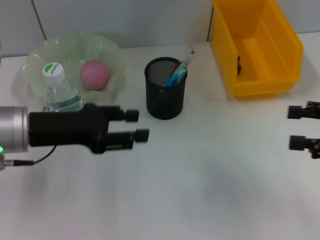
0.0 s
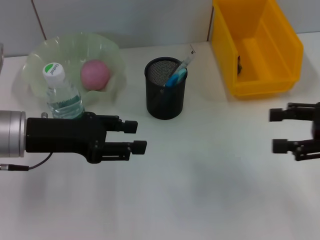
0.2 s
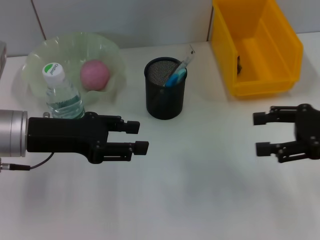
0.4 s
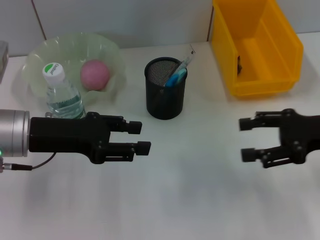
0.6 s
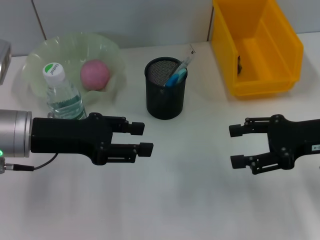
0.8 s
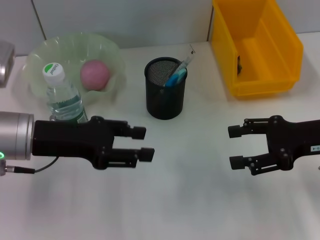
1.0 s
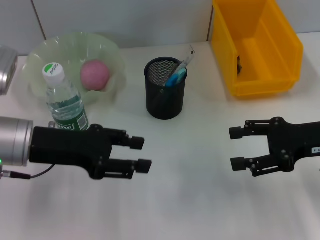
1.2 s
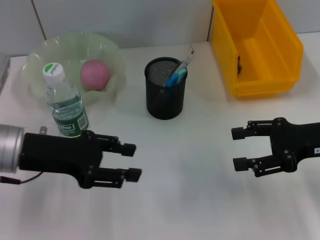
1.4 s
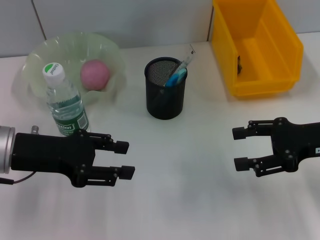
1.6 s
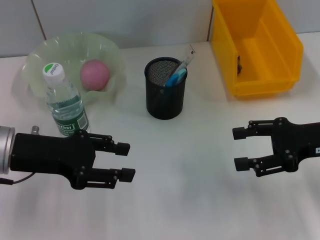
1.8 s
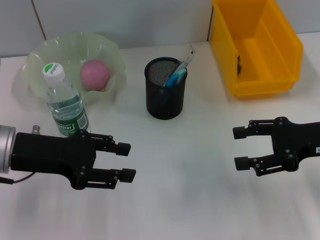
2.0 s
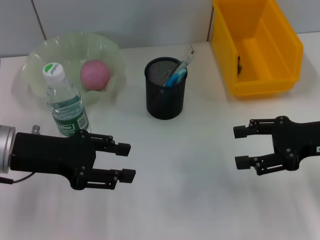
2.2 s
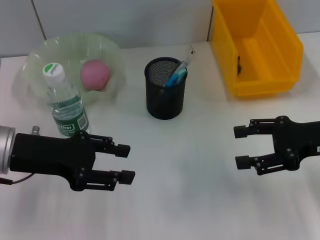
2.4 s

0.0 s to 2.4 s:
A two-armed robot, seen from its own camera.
0.0 to 1.2 s: The right gripper shifts some 5 cm to the left.
1.2 to 2.4 s: The grippers stay close to where they were, moving slightly.

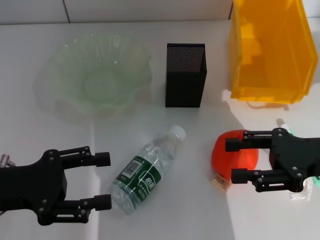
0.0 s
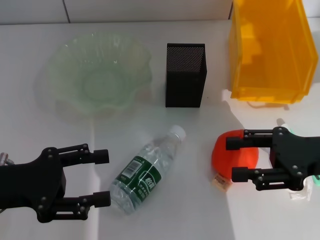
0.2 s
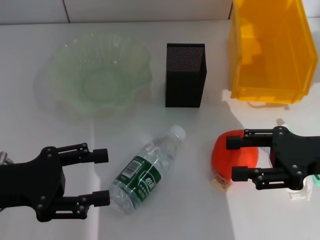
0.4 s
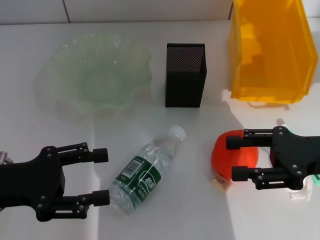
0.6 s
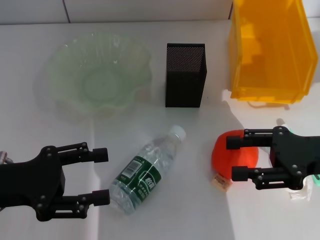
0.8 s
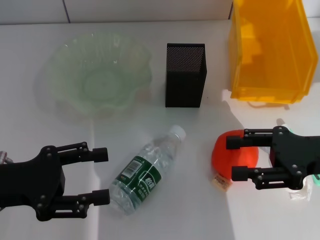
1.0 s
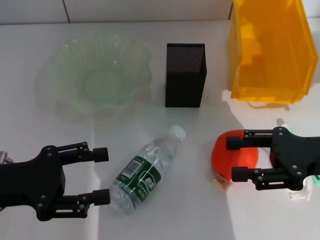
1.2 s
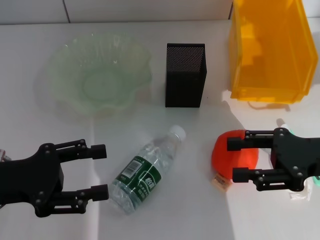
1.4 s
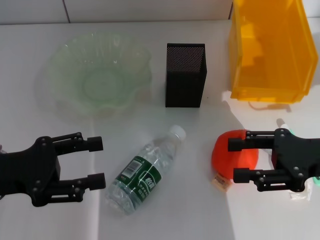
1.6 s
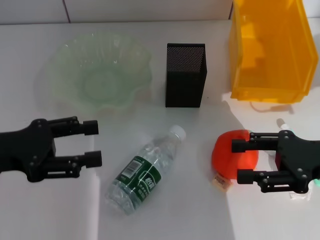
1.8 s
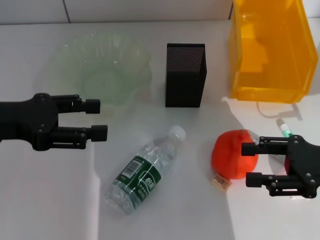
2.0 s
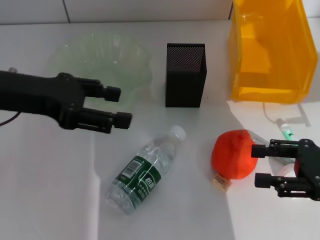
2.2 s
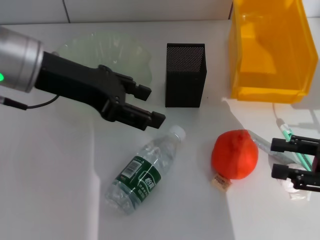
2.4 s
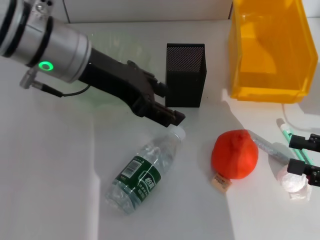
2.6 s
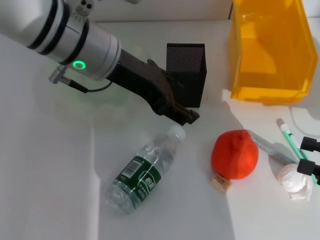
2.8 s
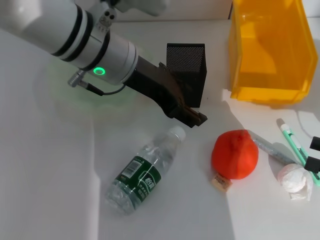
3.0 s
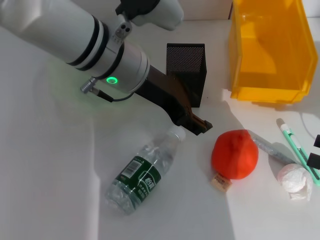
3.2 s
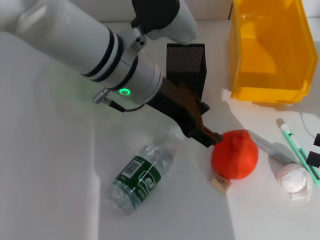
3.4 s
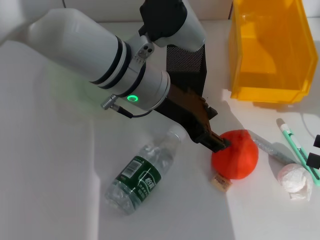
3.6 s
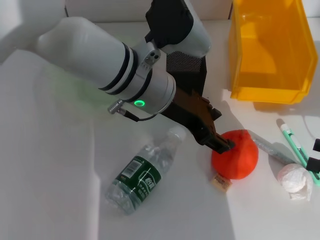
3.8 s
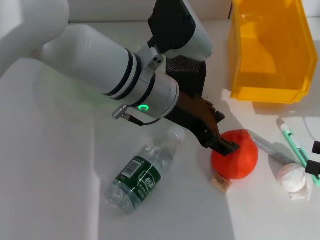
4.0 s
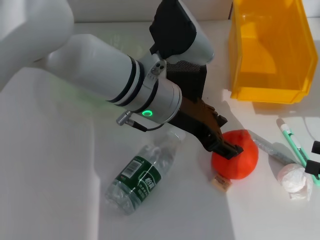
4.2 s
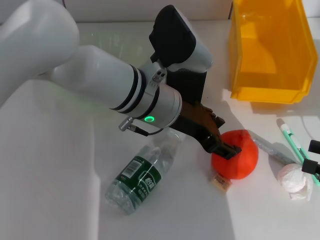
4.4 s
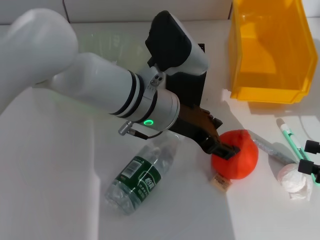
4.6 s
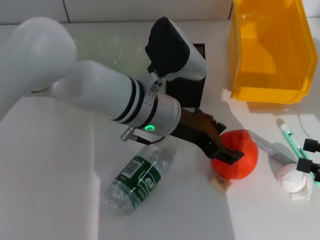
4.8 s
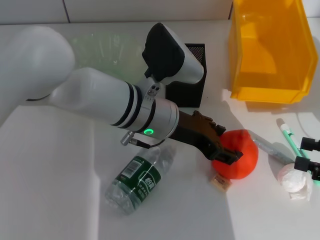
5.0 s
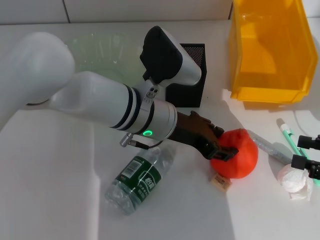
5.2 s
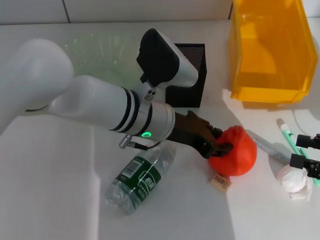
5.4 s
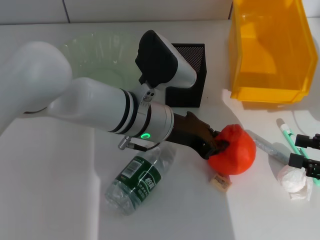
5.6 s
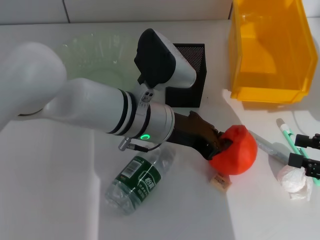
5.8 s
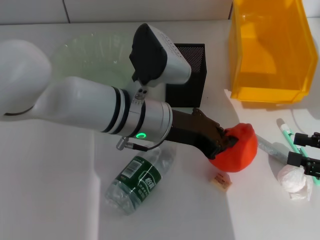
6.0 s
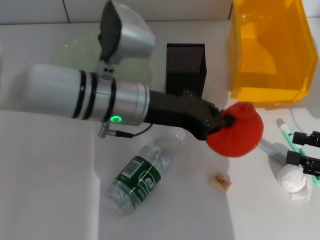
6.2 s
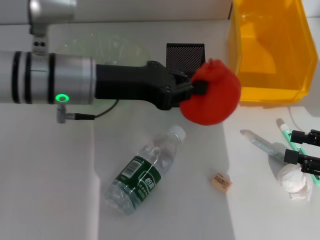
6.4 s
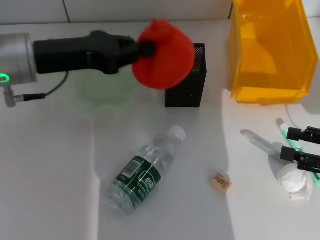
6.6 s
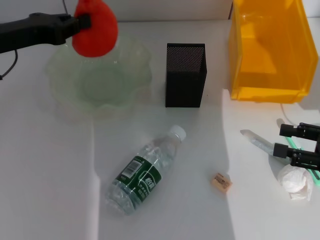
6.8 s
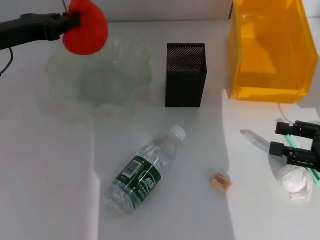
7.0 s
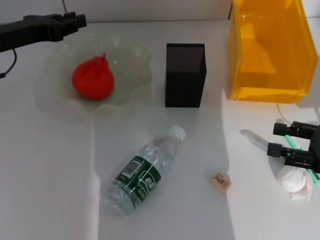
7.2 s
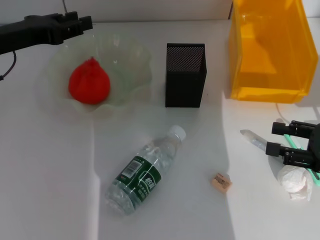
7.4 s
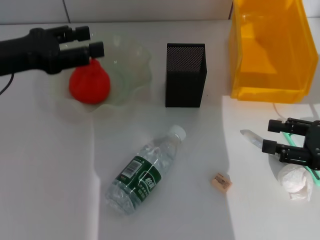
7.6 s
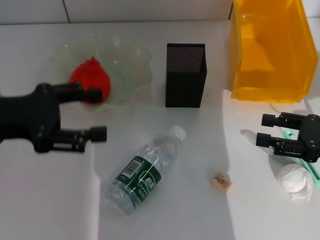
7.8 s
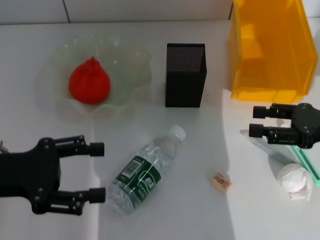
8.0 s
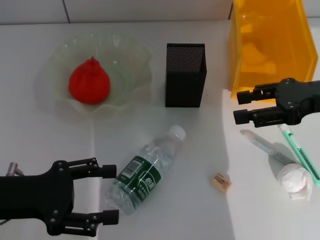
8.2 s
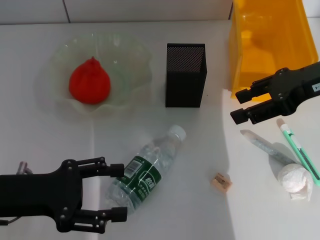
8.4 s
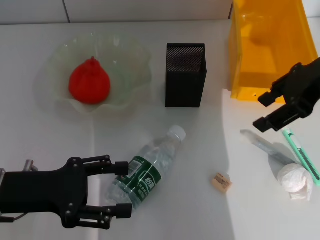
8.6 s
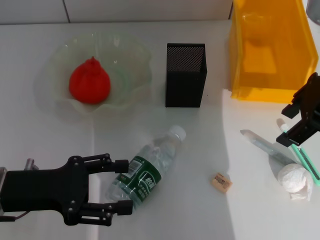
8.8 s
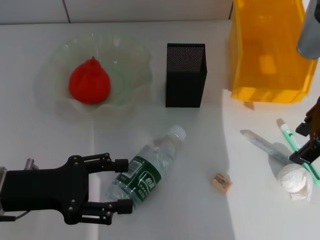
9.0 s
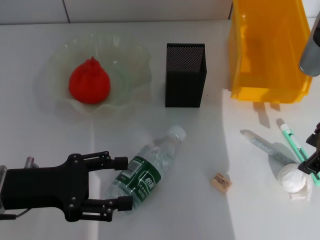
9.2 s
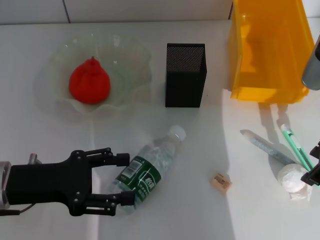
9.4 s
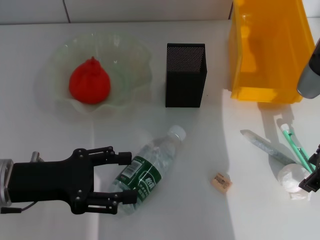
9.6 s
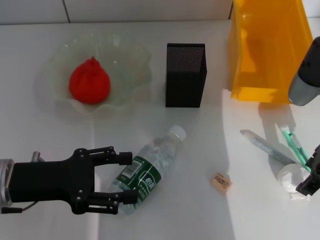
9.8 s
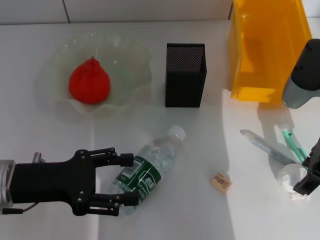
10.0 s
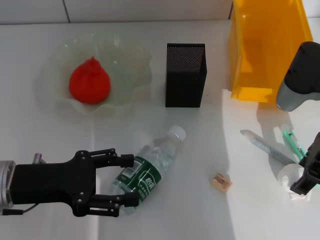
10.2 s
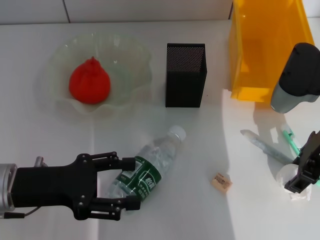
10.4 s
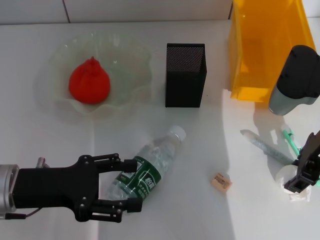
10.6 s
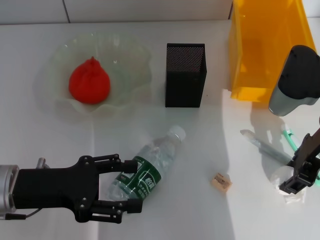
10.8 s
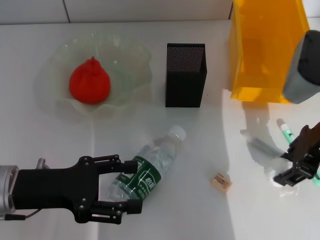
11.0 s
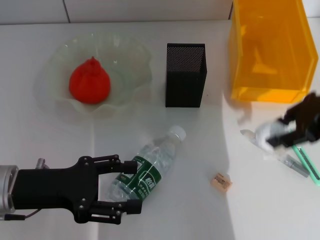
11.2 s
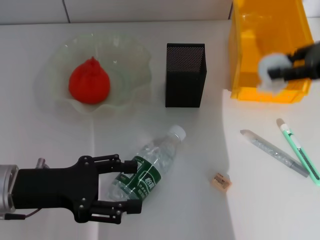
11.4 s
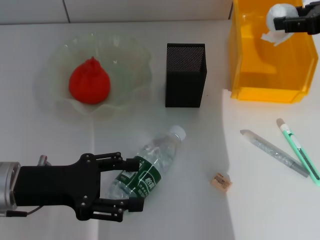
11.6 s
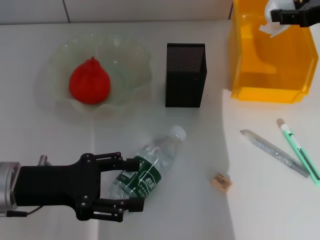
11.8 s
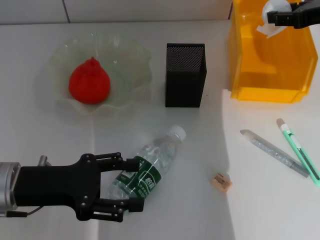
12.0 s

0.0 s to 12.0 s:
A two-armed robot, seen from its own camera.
Step, 0.0 to 5.6 s: Grab the orange with the left hand.
Step, 5.8 to 7.2 s: Place the orange into the fruit bowl with the left hand.
Step, 7.4 to 10.4 s: Grab the paper ball with the right hand.
0.0 to 1.6 s: Neither gripper changes place.
1.6 to 3.0 s: The left gripper shifts about 25 cm to the right, forward and upward; the right gripper heads to the right and backward, covering approximately 10 cm.
3.0 to 4.4 s: The left gripper is displaced downward and to the right by about 10 cm.
4.4 to 6.0 s: The left gripper closes its fingers.
6.0 to 7.6 s: The left gripper is displaced to the left by approximately 25 cm, and opens.
7.6 to 9.0 s: The right gripper heads upward, to the left and forward, covering approximately 20 cm. The left gripper travels backward and downward by about 15 cm, and opens up.
9.0 to 10.4 s: The right gripper travels downward by roughly 5 cm.
10.4 to 12.0 s: The right gripper goes about 10 cm forward and to the right.

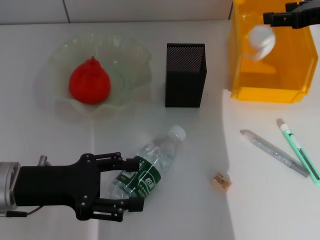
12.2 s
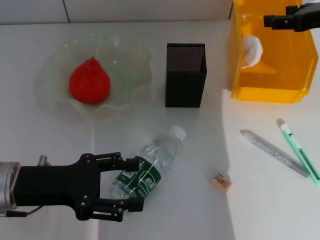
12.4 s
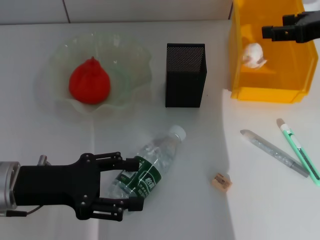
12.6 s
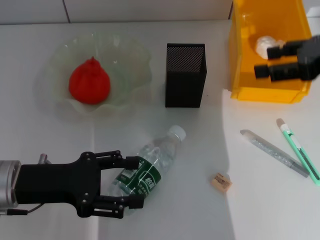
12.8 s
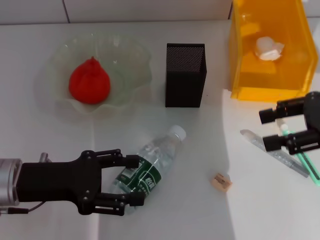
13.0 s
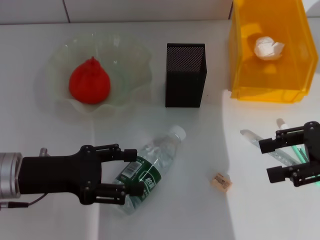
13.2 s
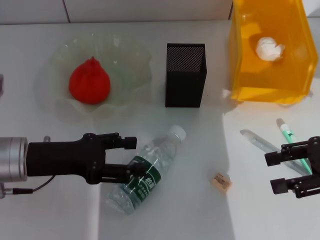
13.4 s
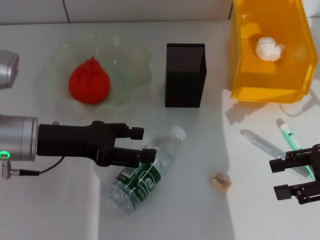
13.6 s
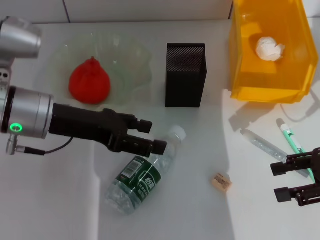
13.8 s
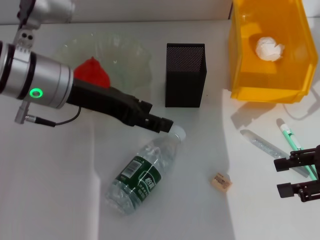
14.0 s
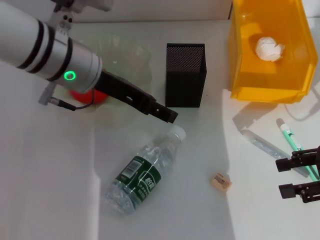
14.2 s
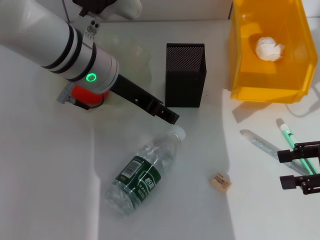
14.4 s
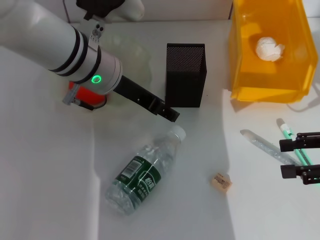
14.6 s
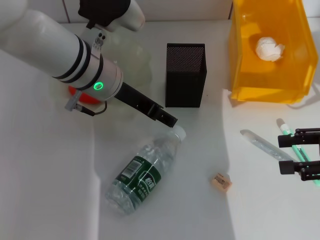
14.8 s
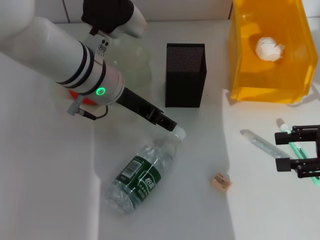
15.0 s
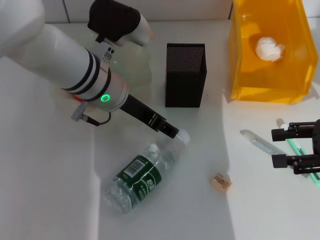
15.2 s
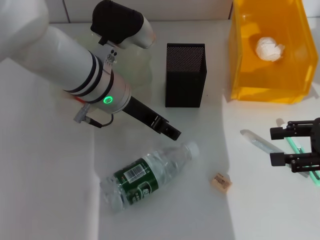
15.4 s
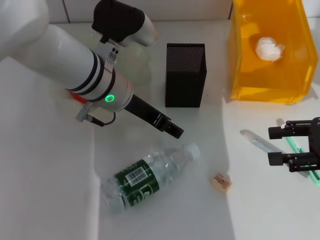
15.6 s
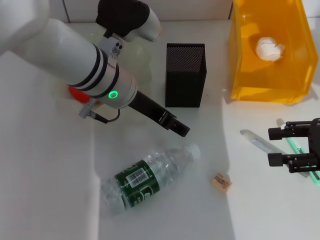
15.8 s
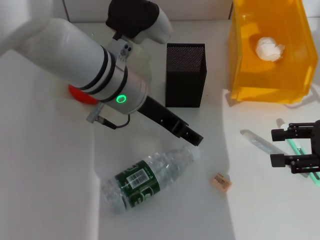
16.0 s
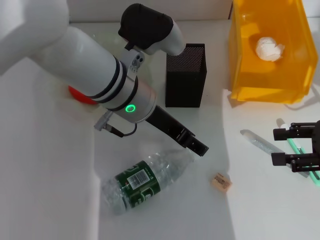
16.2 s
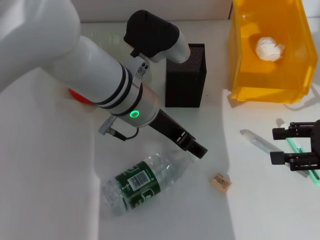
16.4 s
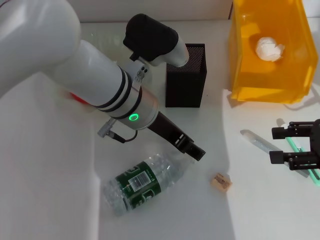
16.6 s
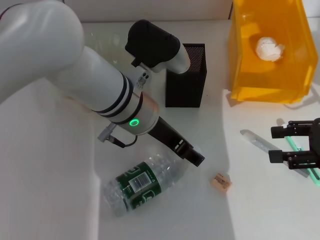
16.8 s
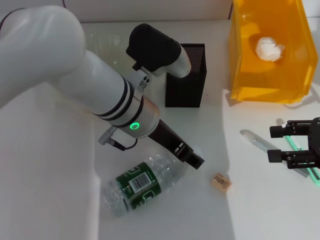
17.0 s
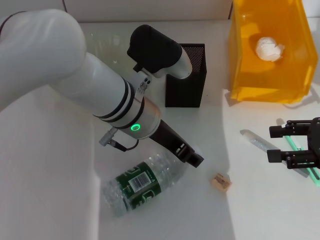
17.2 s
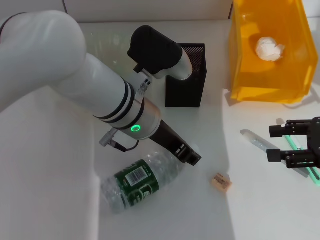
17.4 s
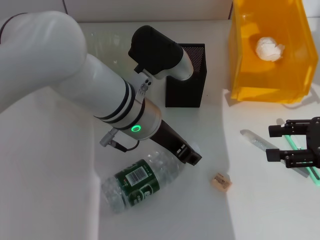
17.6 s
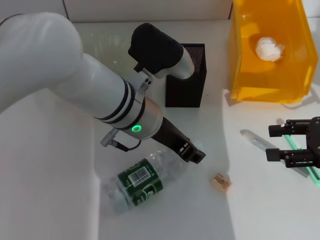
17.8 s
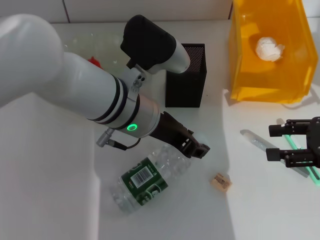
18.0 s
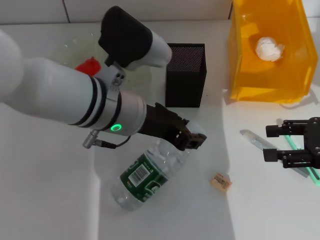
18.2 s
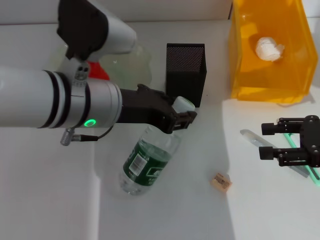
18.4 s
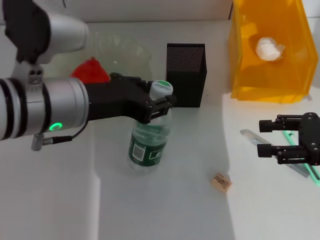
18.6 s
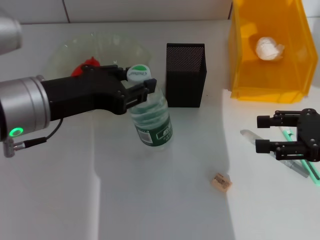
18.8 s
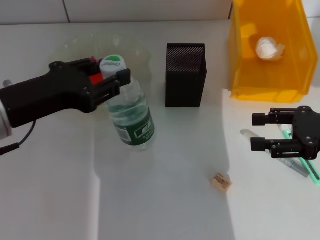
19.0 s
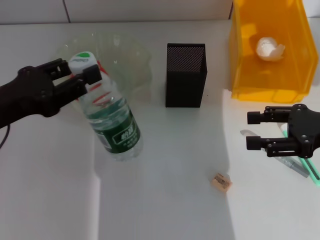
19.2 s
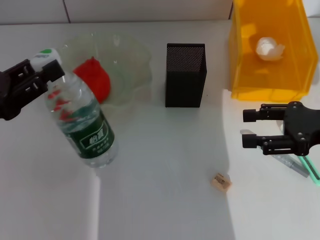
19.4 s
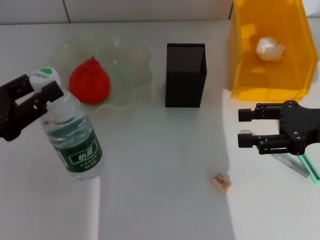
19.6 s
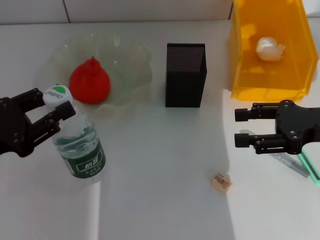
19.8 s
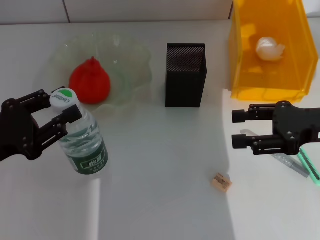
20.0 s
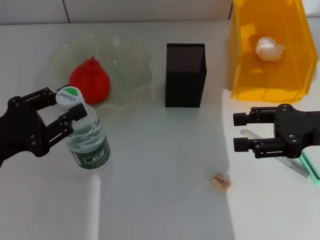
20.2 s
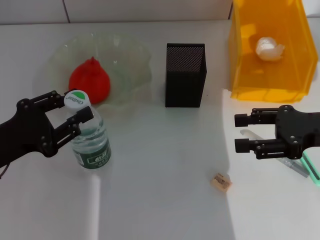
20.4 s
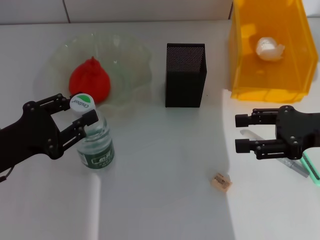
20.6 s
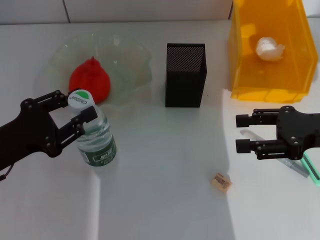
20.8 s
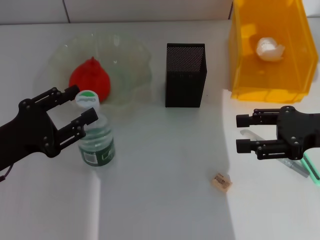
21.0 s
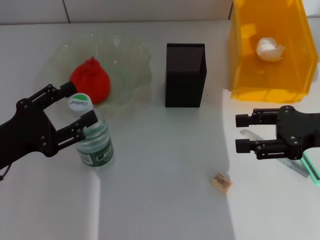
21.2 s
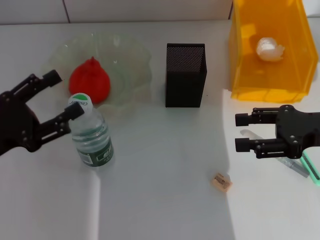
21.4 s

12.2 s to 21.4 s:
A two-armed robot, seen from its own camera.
Step, 13.0 to 17.4 s: Grab the water bottle with the left hand.
Step, 17.6 to 21.0 s: Place the water bottle on the table with the left hand.
12.2 to 13.8 s: The left gripper travels forward and upward by some 10 cm, while the right gripper moves backward and downward, roughly 15 cm.
13.8 to 15.2 s: The left gripper heads to the right and forward, covering some 10 cm.
15.2 to 16.8 s: The grippers stay close to where they were, moving slightly.
16.8 to 18.4 s: The left gripper moves about 10 cm, and closes its fingers.
18.4 to 19.8 s: The left gripper travels to the left by some 20 cm.
19.8 to 21.4 s: The left gripper opens its fingers.
